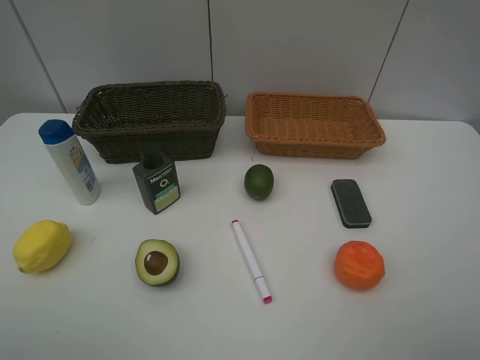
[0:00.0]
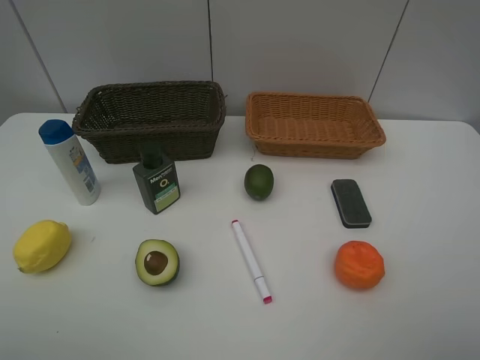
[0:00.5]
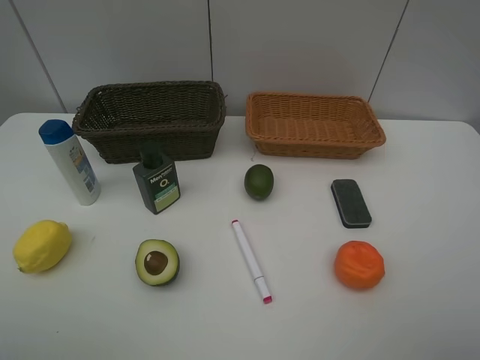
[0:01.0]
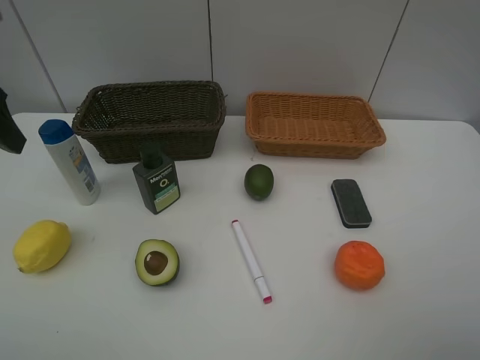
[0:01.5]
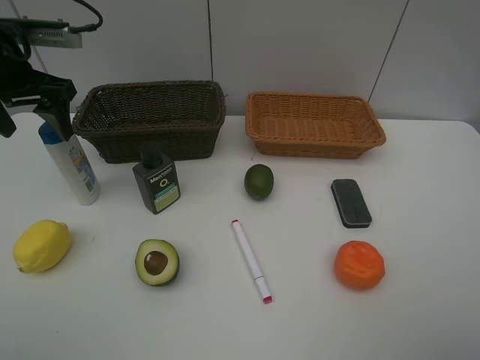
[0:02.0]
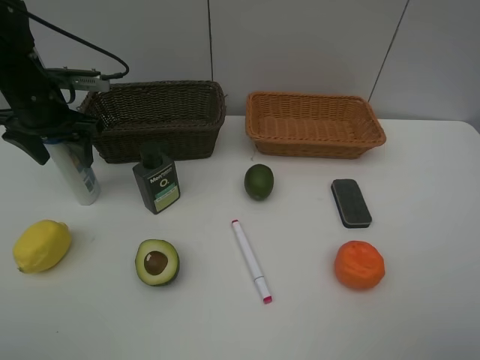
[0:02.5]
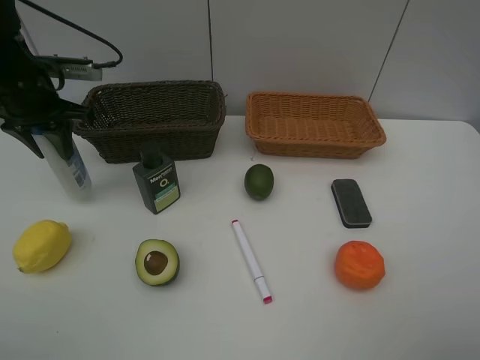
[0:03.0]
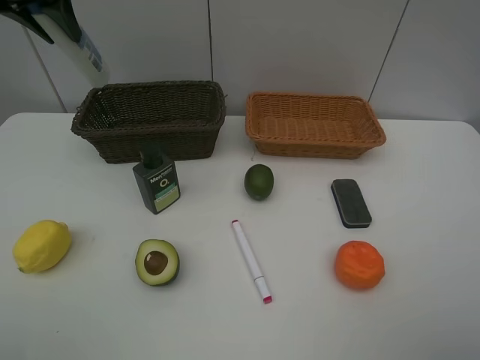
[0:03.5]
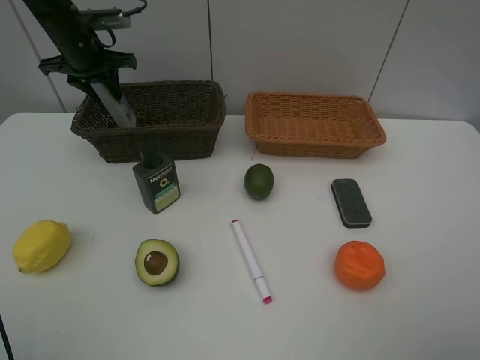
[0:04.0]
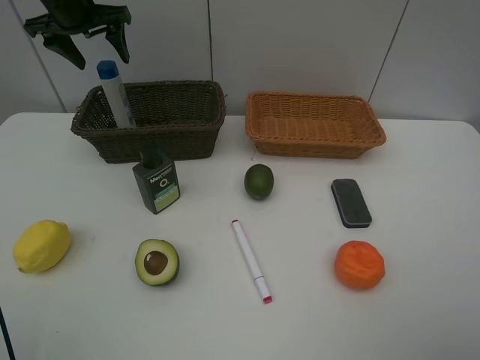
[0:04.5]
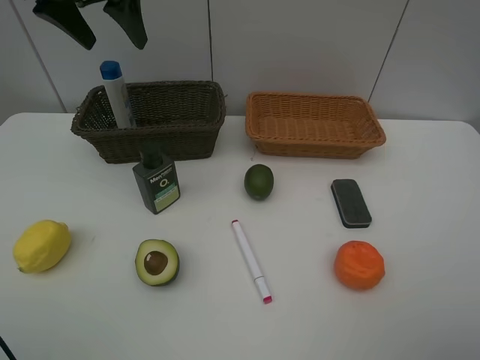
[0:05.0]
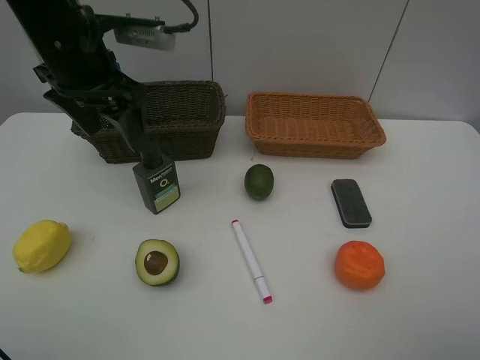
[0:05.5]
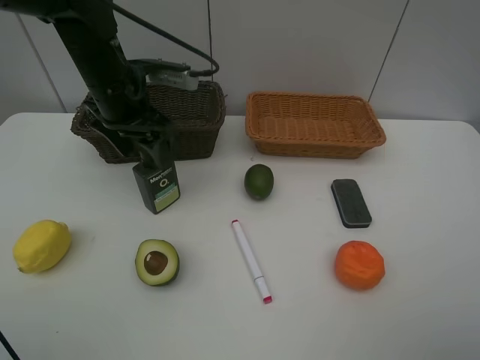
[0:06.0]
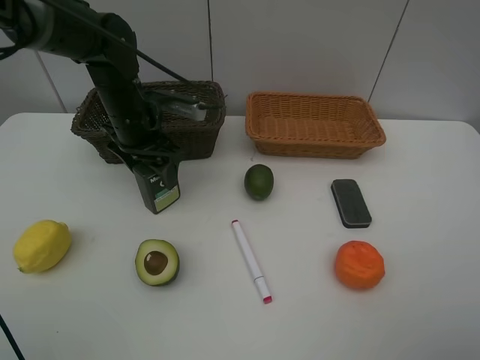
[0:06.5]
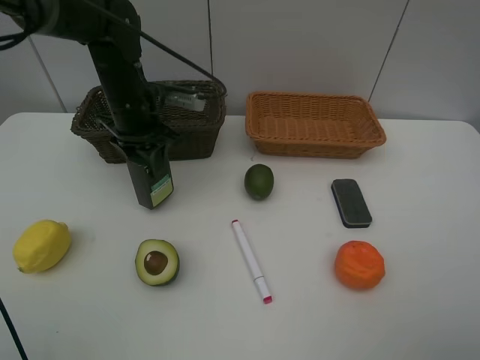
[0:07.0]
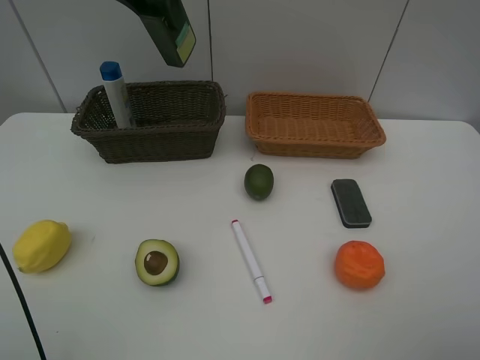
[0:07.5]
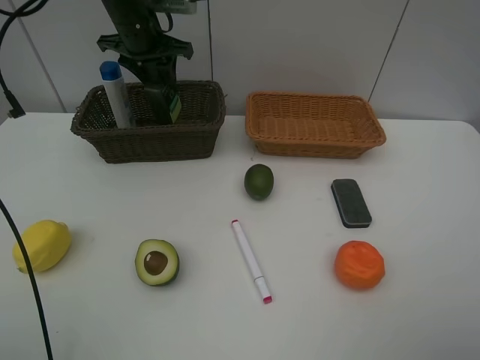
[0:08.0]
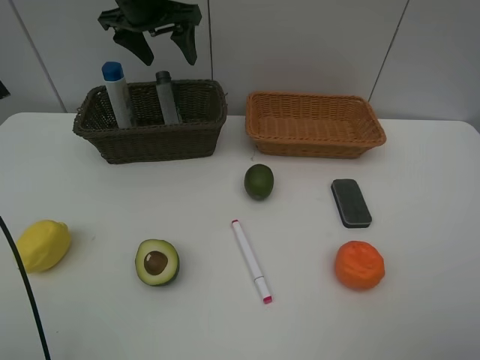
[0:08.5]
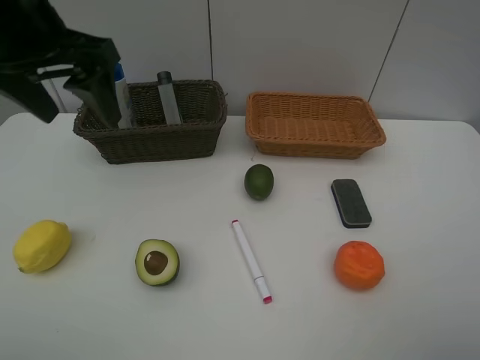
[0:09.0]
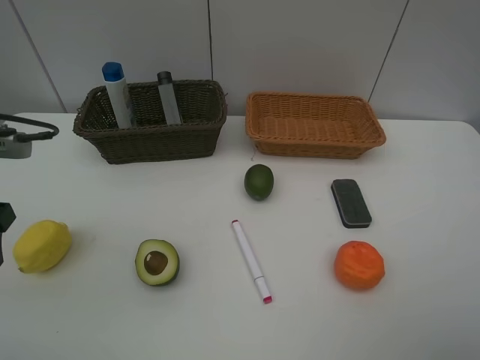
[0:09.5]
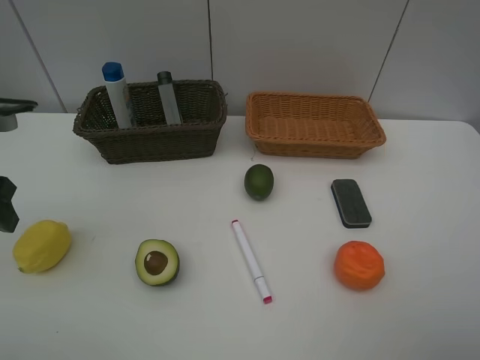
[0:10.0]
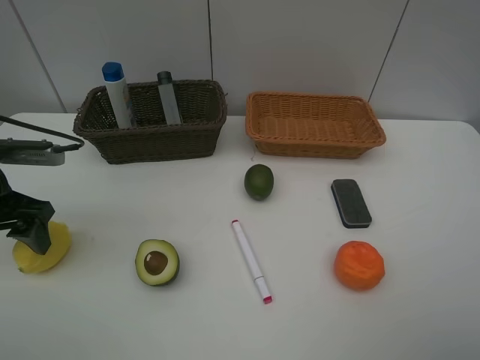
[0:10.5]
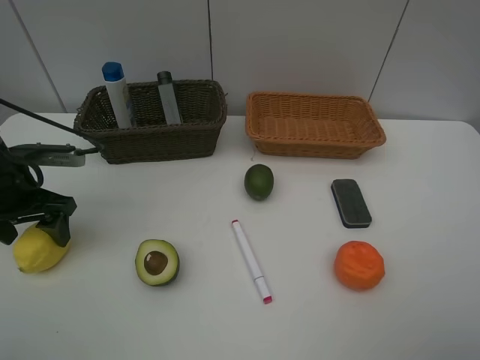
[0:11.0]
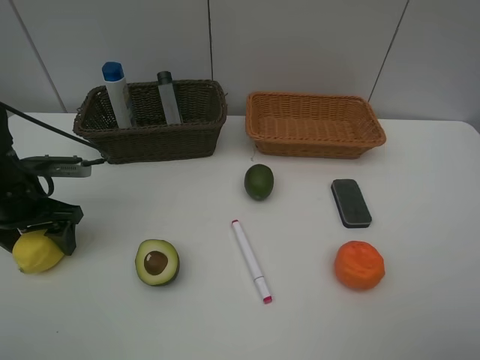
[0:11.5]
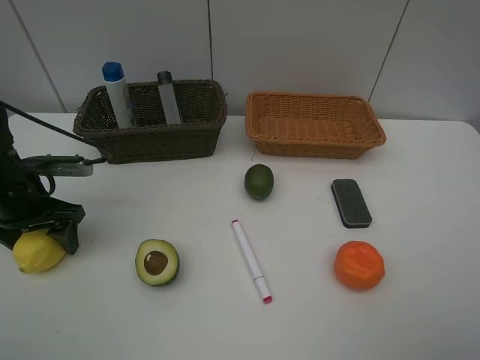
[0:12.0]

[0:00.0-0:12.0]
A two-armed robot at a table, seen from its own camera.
Task of the whole recording: Place multiple objects separately in different baskets.
Step, 0:00.0 to 0:03.0: Pick up the shampoo with left gripper.
Step, 0:03.5 to 0:04.0: Place the shampoo in the dark basket with left gripper.
Step, 0:04.5 to 0:07.0: Pick up the hard facial cleanser with left gripper.
Step, 0:07.5 to 0:08.0: Place the hard facial cleanser in the dark basket with left gripper.
0:00.0 to 0:02.0: The left gripper travels forward by about 35 cm.
0:02.0 to 0:04.0: The left gripper swings up and down, about 15 cm each way, with 2 reversals, and closes up.
0:04.0 to 0:06.0: The left gripper goes roughly 15 cm backward and to the right, and opens up.
0:06.0 to 0:08.0: The left gripper moves up and down over some 20 cm, changing direction 2 times, and closes its fingers.
0:08.0 to 0:10.0: The left gripper heads backward and to the left, covering some 35 cm, and opens.
0:10.0 to 0:12.0: The left gripper heads downward and forward, covering some 15 cm.

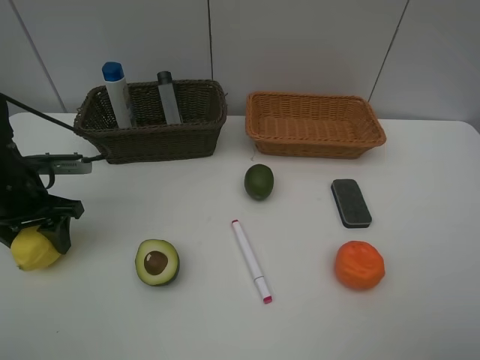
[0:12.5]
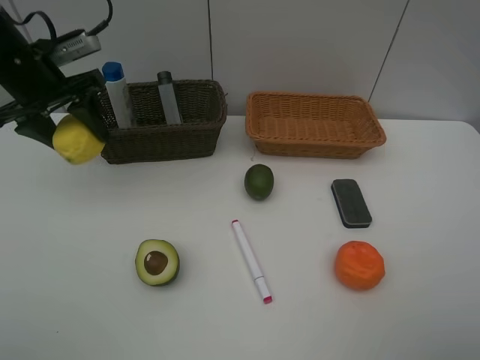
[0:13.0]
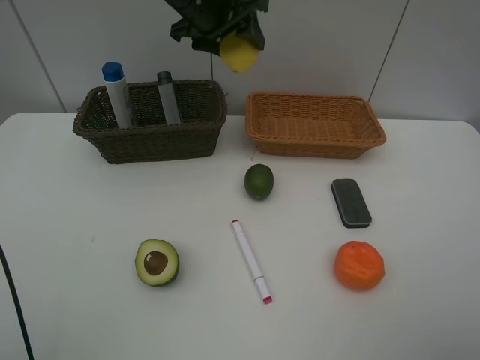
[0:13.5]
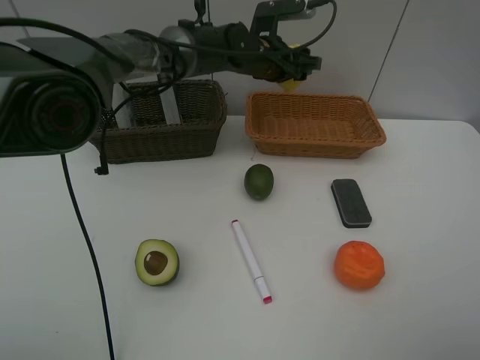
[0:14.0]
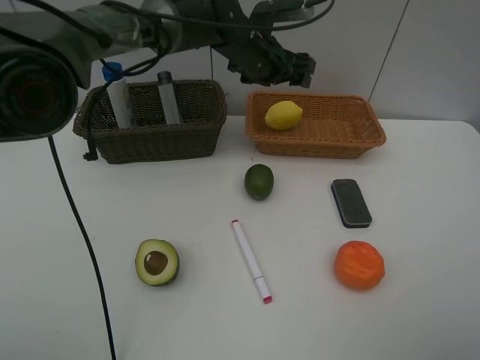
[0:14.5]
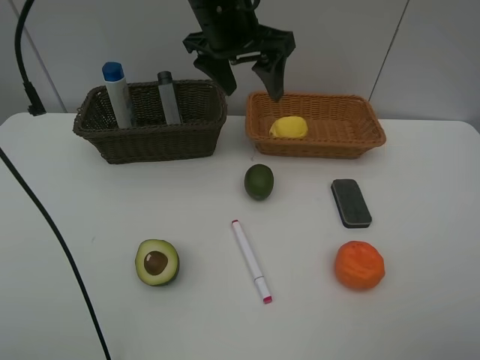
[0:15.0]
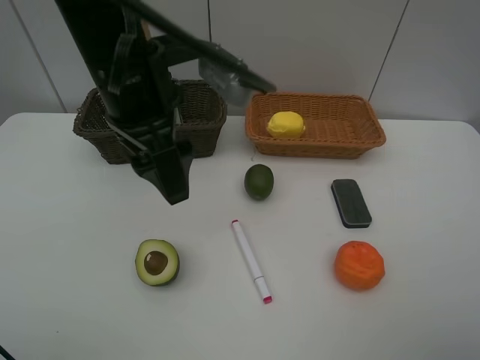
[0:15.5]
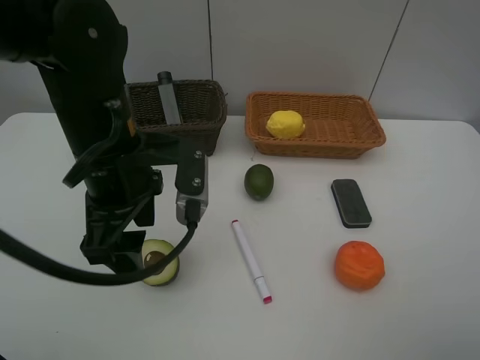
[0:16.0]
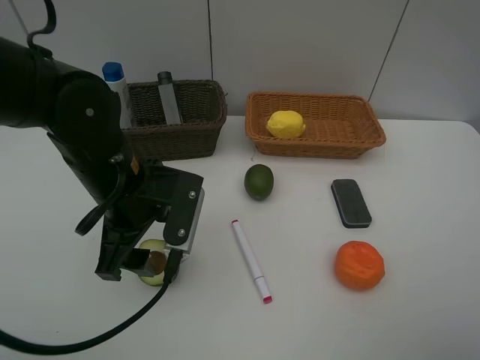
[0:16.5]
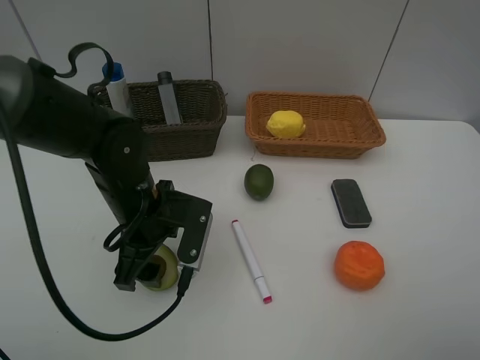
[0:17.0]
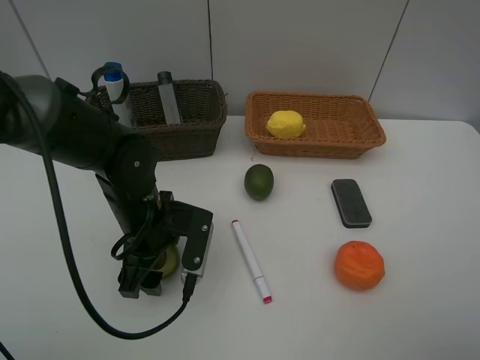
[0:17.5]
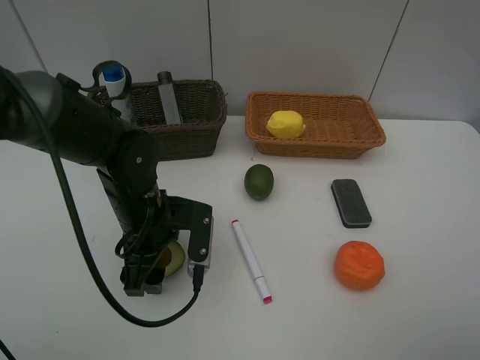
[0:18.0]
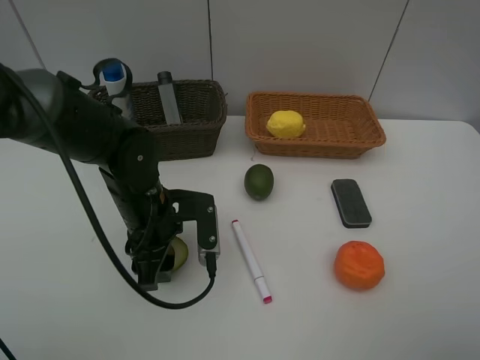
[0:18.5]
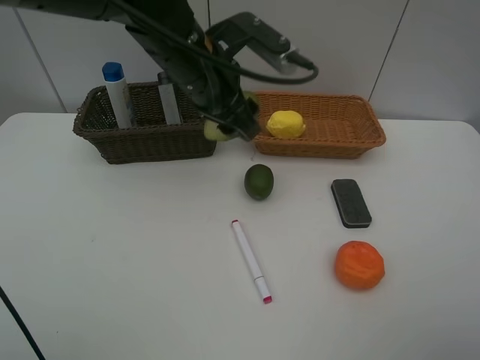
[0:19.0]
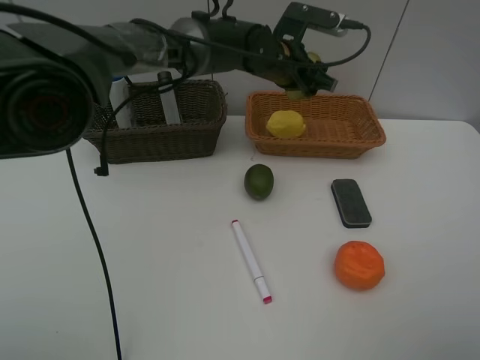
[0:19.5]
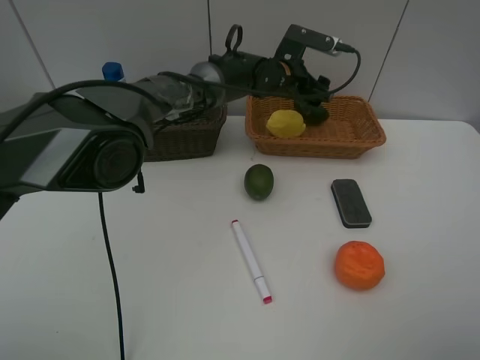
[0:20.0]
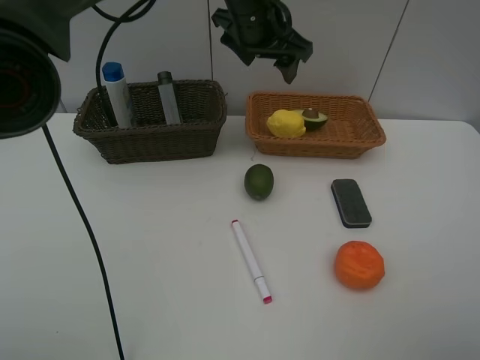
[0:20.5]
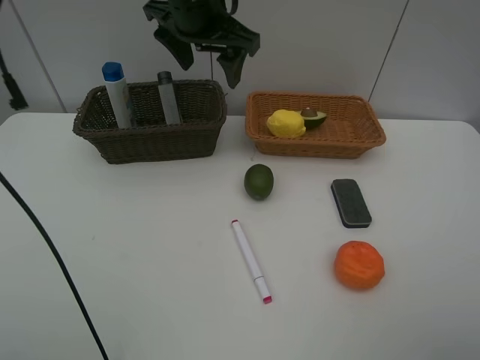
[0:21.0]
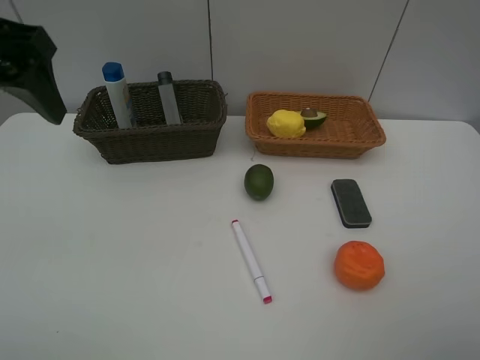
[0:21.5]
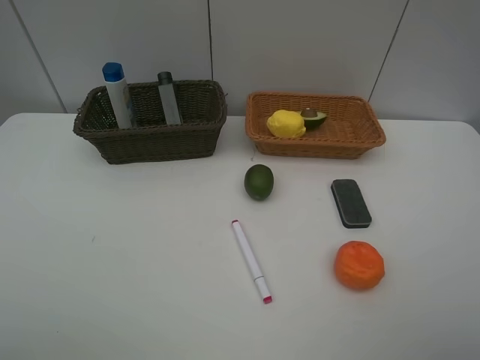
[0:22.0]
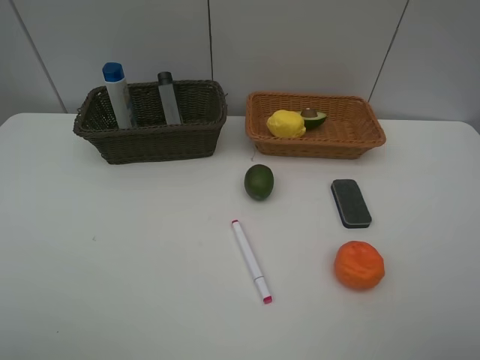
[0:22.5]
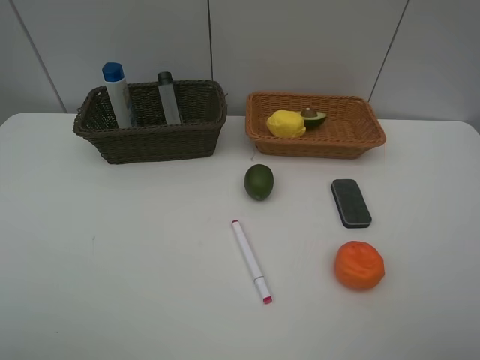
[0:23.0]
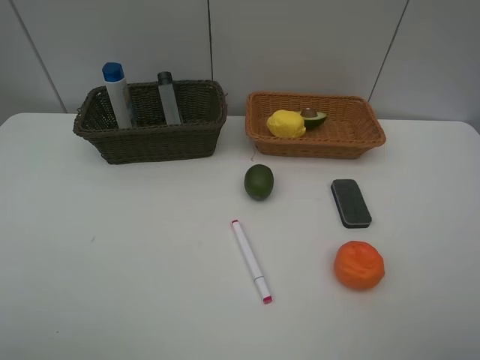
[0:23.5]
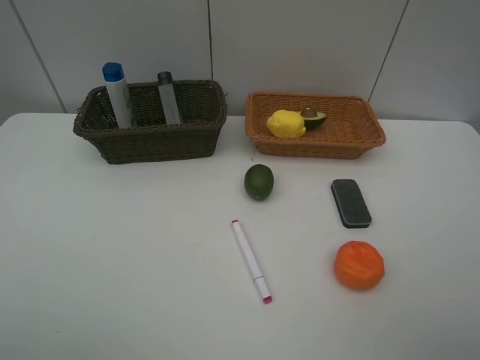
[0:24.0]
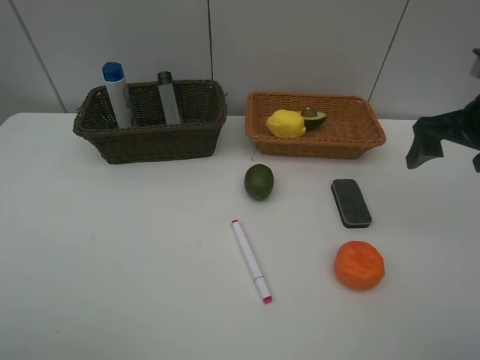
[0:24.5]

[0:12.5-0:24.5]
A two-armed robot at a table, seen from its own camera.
Task of the whole recording: Place multiple objects separately in different baskets.
Step, 0:13.0 to 0:14.0: Place the lemon in the light basket with left gripper.
Step, 0:14.5 to 0:18.5: Pick up the avocado with left gripper.
Step, 0:19.0 to 0:20.0: Place the avocado in the light basket with left gripper.
0:12.5 to 0:14.5: The left gripper shifts approximately 35 cm to the right and forward, and opens up.
0:14.5 to 0:16.5: The left gripper is displaced backward and to the left by approximately 25 cm.
0:16.5 to 0:18.5: The left gripper goes some 5 cm downward, and closes up.
0:18.5 to 0:20.5: The left gripper travels upward, forward and to the right by some 30 cm, and opens its fingers.
0:20.5 to 0:22.5: The left gripper shifts some 50 cm backward and to the left.
0:22.5 to 0:24.5: The right gripper travels forward by some 25 cm.

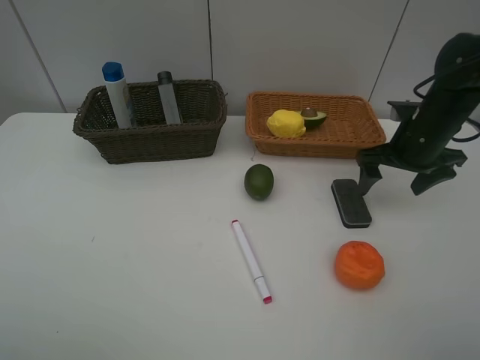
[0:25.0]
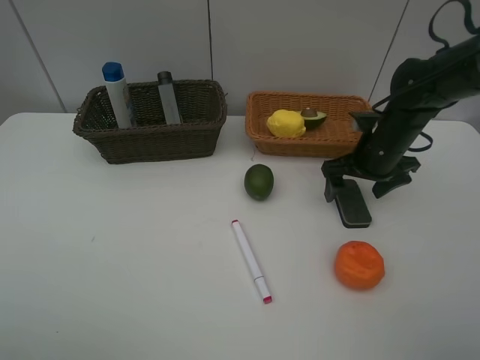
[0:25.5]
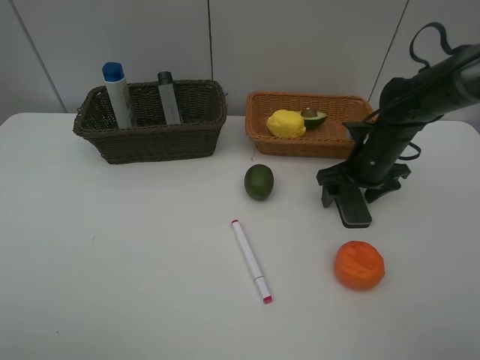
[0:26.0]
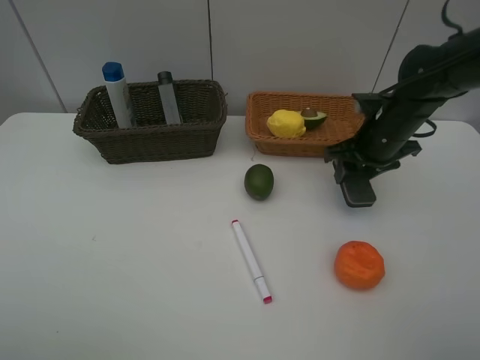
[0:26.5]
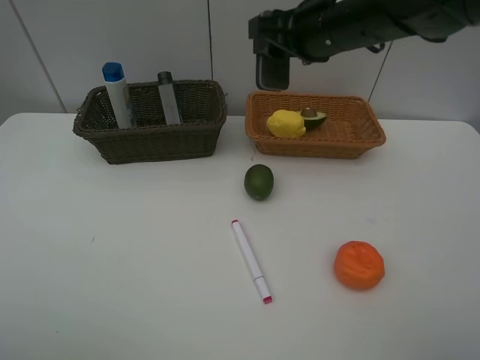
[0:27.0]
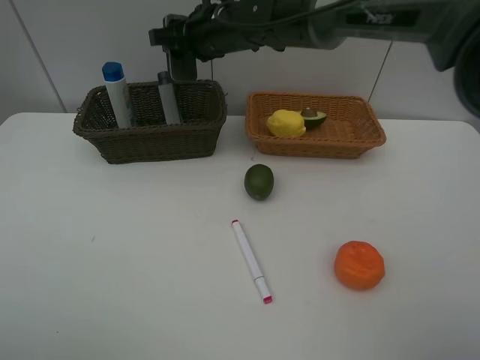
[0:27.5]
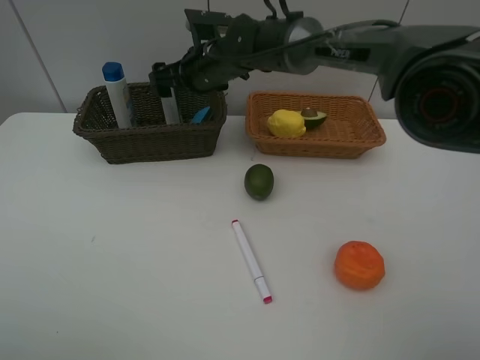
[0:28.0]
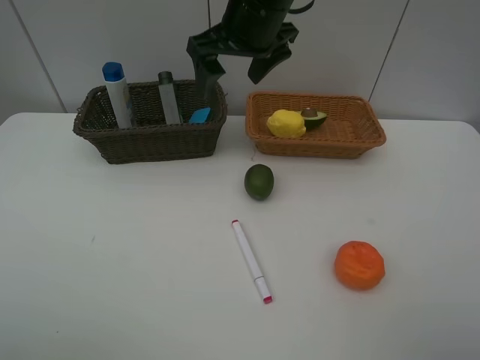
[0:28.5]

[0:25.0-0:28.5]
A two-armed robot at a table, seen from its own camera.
Task of the whole recording: Place multiple objects separately in different baskets.
Step, 0:27.0 to 0:28.0: Place the blackboard eraser in the dark basket with right gripper.
0:25.0 to 0:27.0: The right gripper goes about 20 cm to the left and upward, and closes its fingers.
0:27.0 to 0:28.5: The right gripper is displaced to the left by about 5 cm, and opens.
